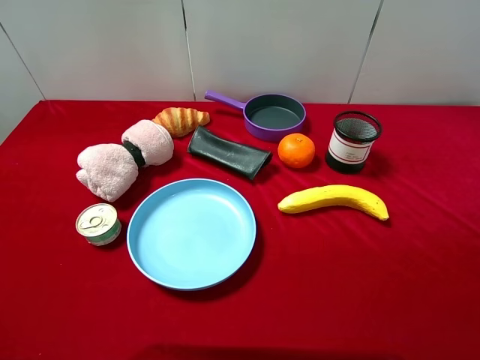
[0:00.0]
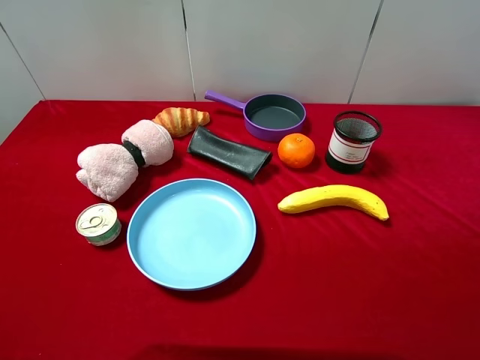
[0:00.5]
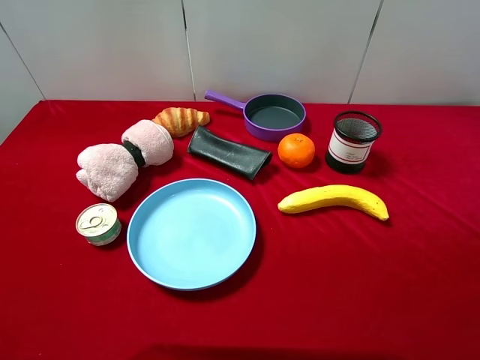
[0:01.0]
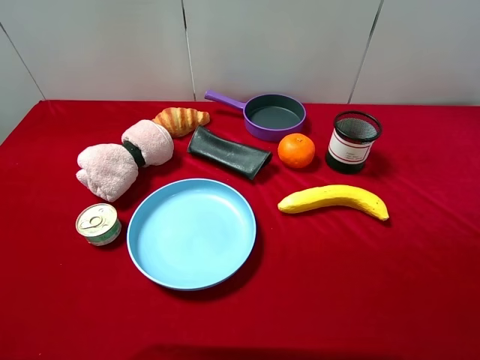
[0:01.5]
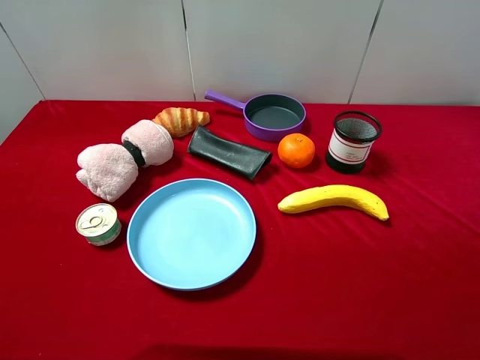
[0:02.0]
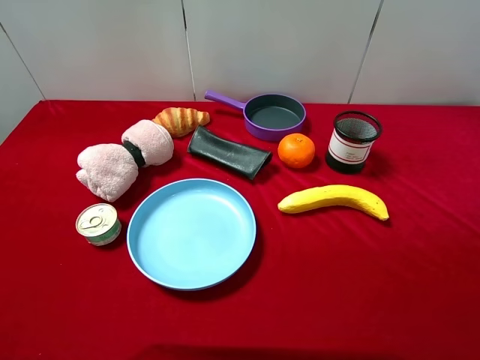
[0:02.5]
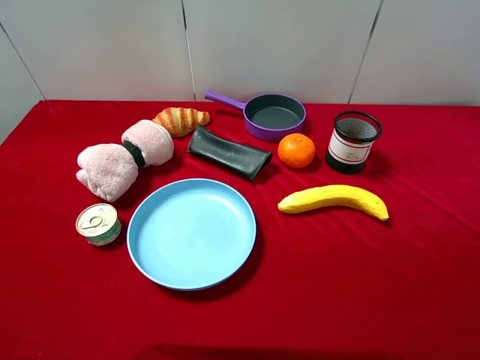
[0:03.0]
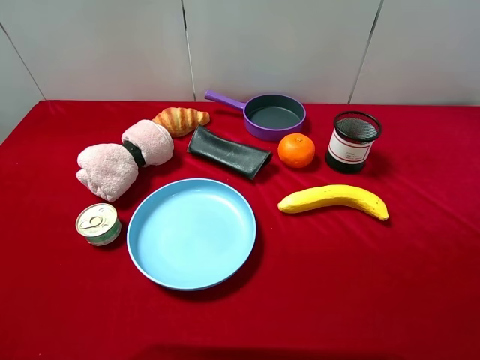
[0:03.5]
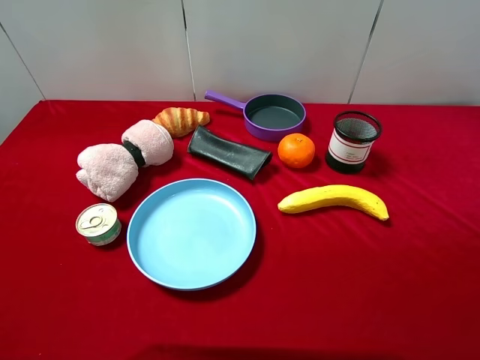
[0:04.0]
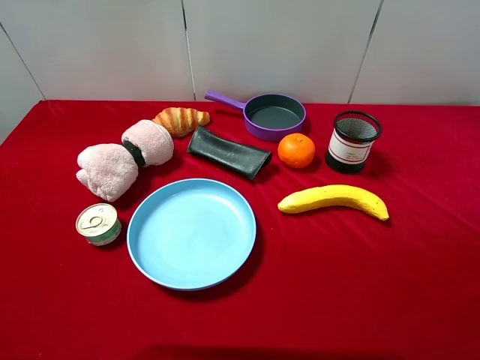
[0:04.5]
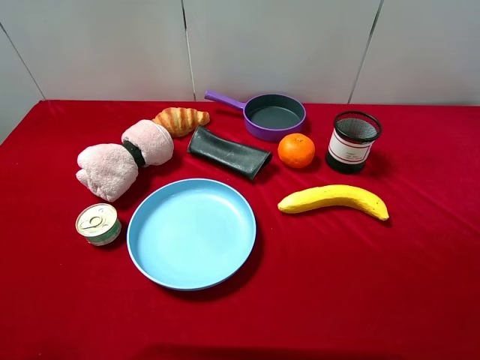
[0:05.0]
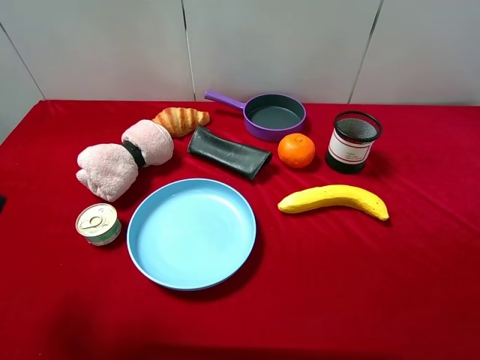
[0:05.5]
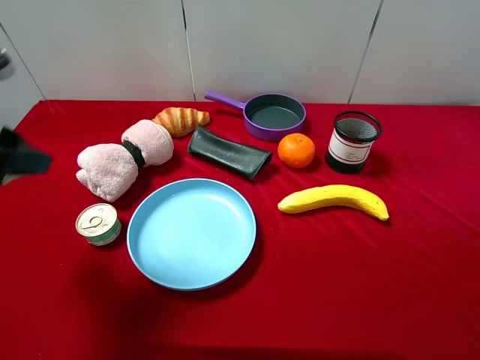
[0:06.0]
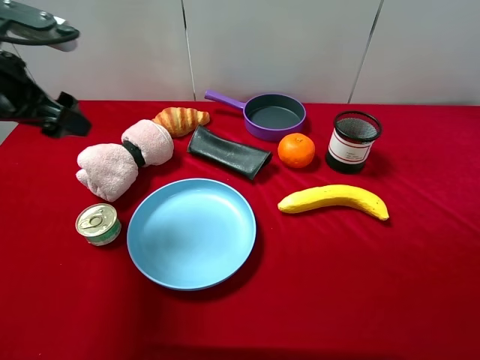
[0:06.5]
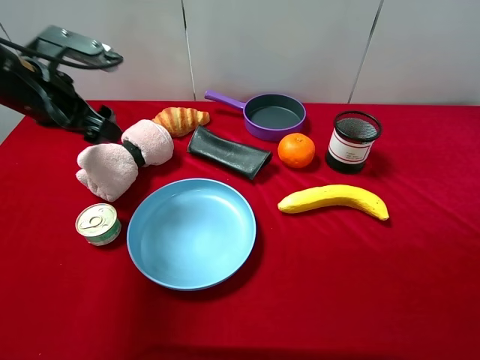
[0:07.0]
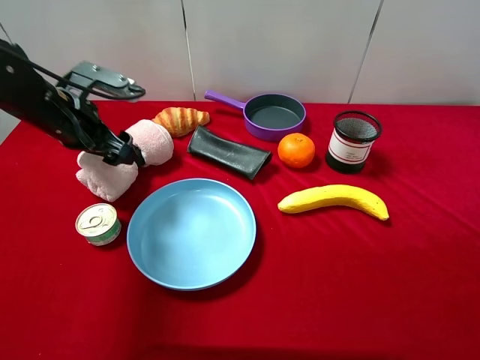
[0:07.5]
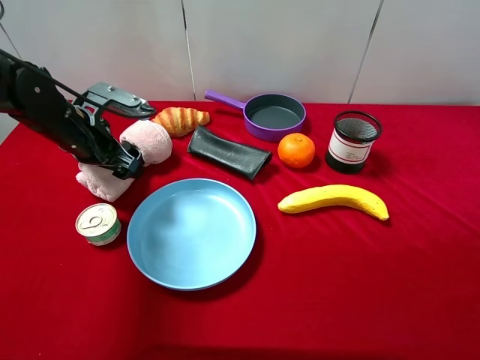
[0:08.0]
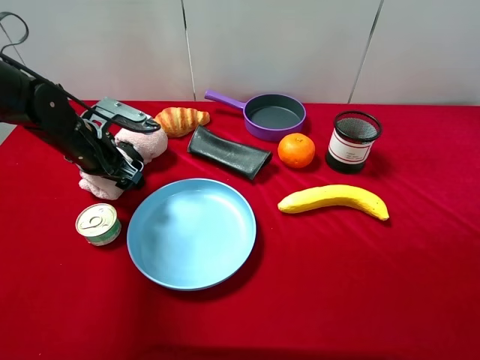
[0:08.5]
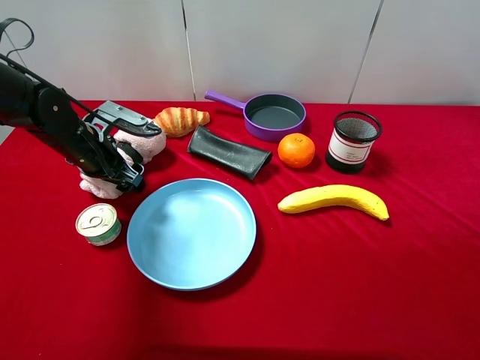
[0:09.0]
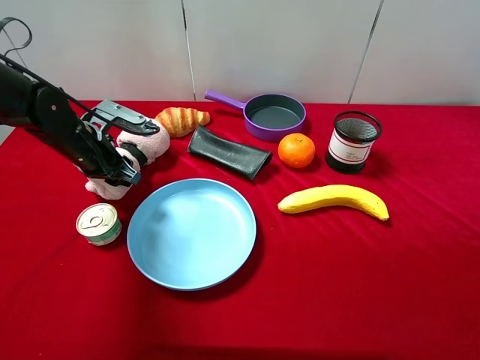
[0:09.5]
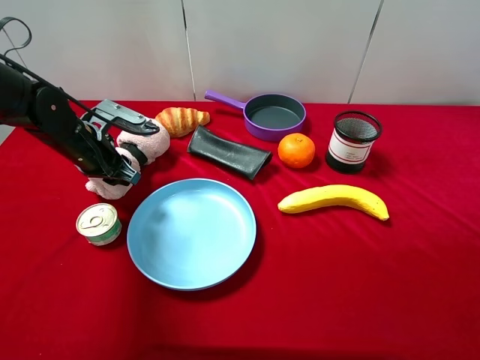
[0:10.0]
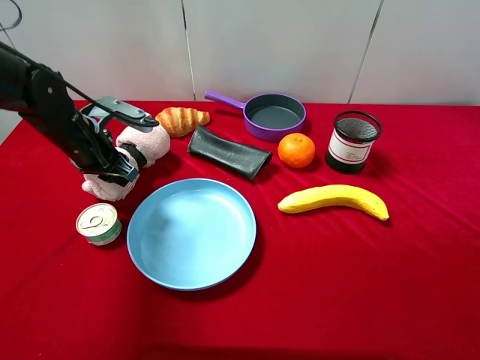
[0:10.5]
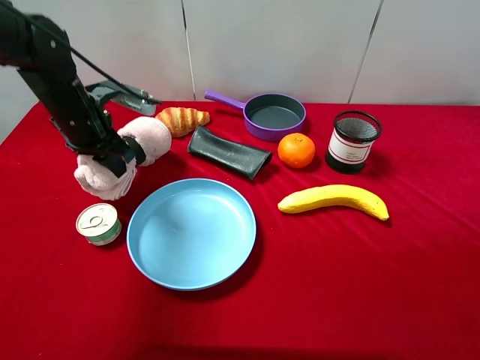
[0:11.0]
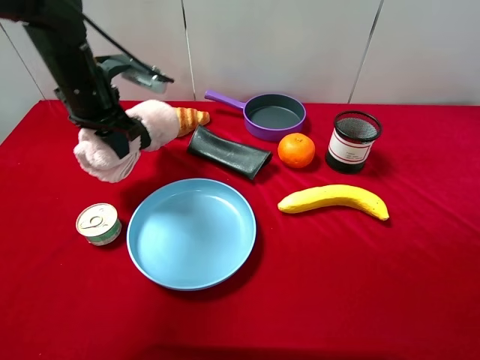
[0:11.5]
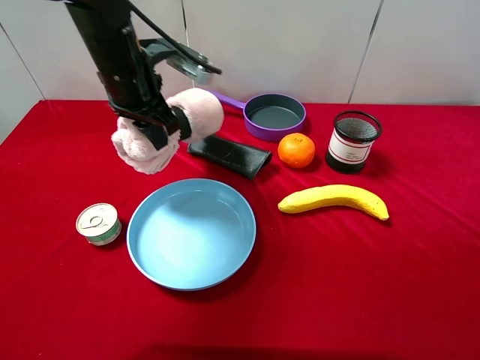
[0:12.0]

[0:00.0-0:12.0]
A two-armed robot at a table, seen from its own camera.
Task of the whole recording: pick up an item with a gripper and place it in a random container on the desktop.
0:00.0 to 0:04.0: Both grippers stay put.
0:04.0 to 0:06.0: The left gripper shifts some 20 cm forward.
0:06.0 to 0:08.0: The left gripper moves forward and downward, approximately 20 cm.
0:08.0 to 0:10.0: The left gripper closes.
0:10.0 to 0:12.0: The left gripper moves upward and to the right, approximately 15 cm.

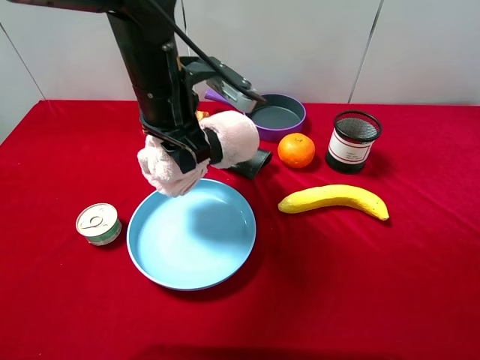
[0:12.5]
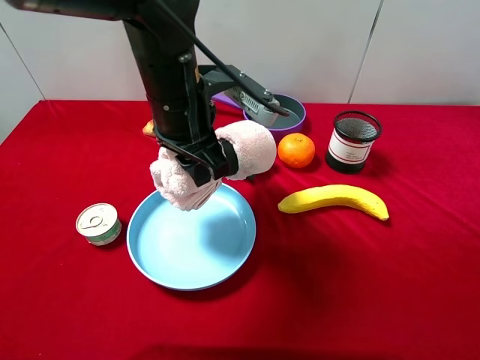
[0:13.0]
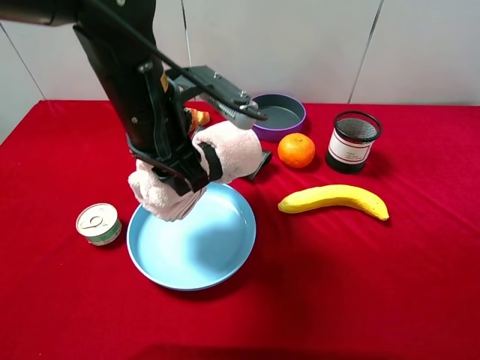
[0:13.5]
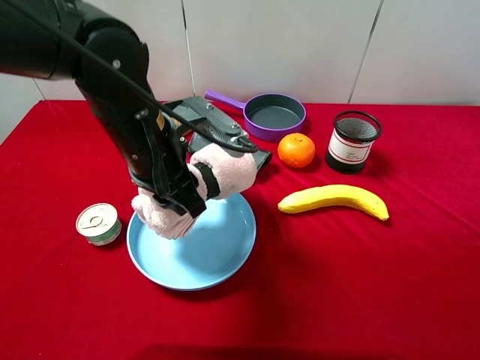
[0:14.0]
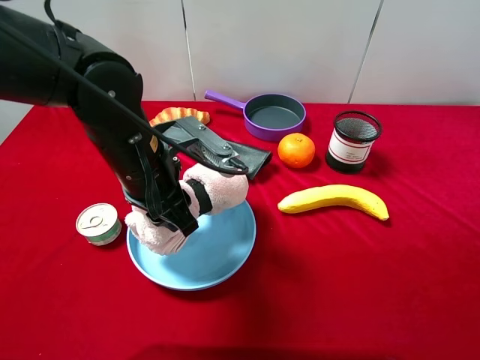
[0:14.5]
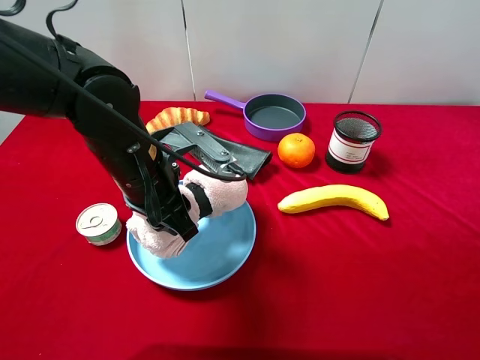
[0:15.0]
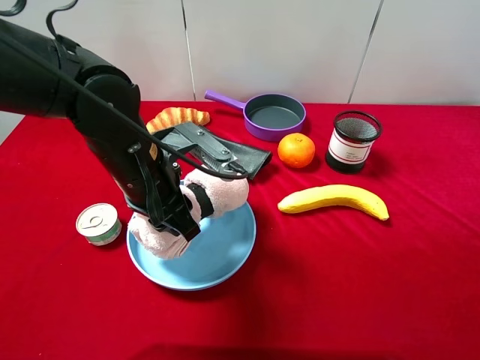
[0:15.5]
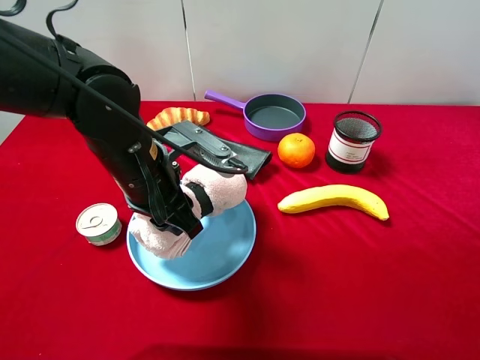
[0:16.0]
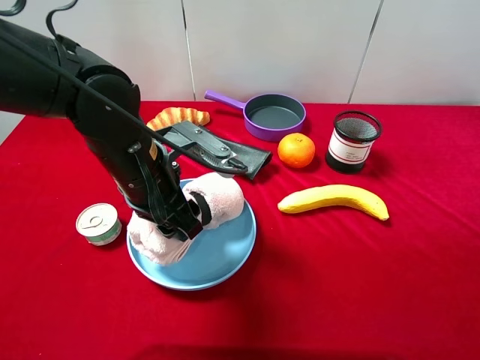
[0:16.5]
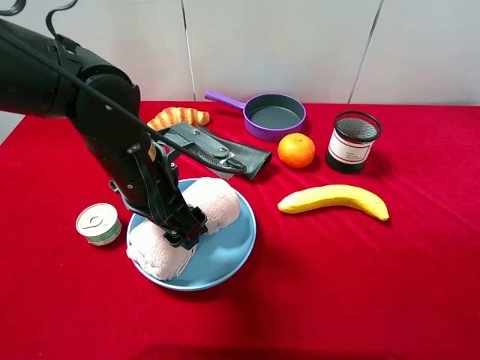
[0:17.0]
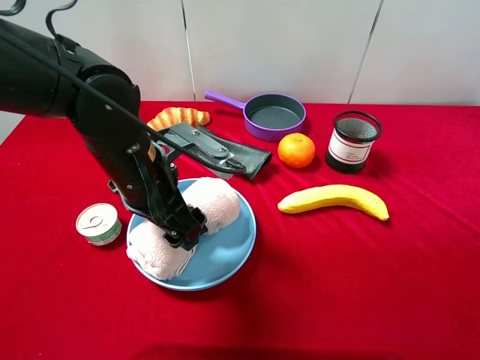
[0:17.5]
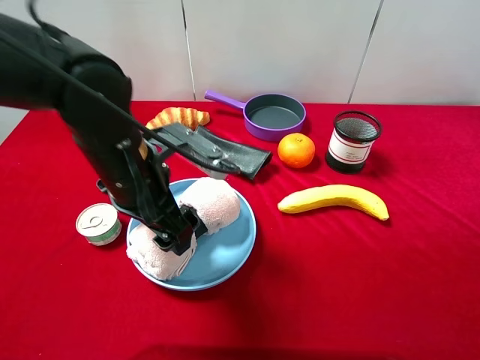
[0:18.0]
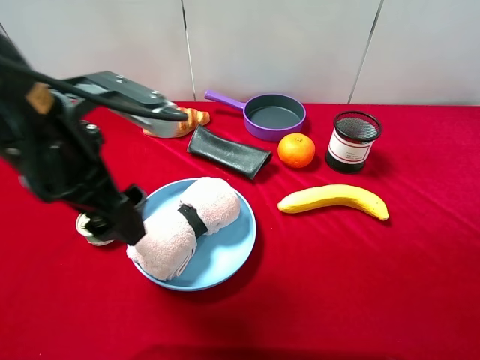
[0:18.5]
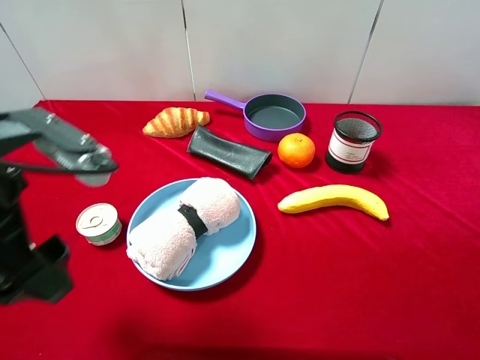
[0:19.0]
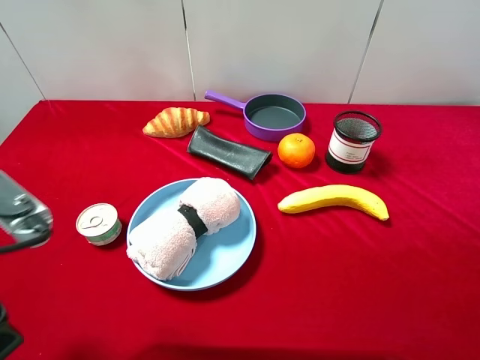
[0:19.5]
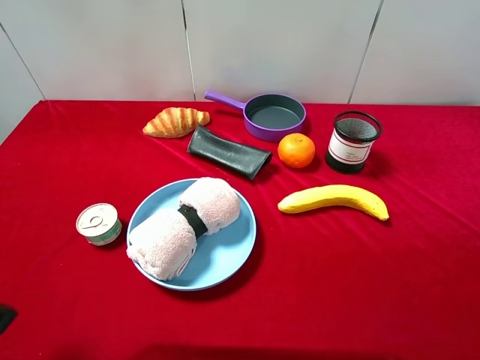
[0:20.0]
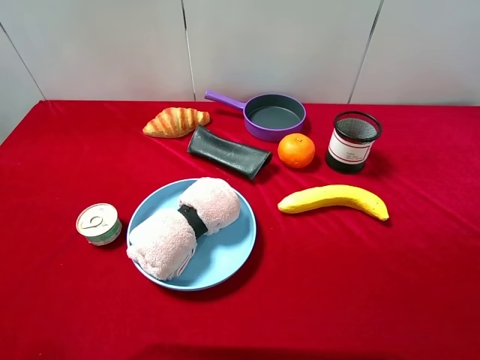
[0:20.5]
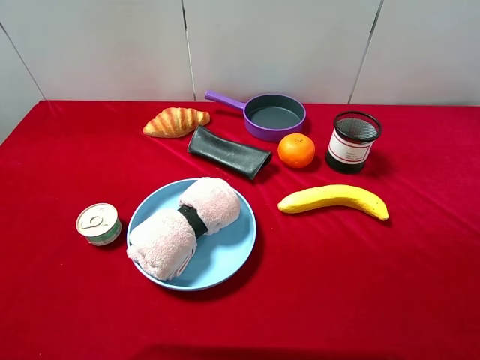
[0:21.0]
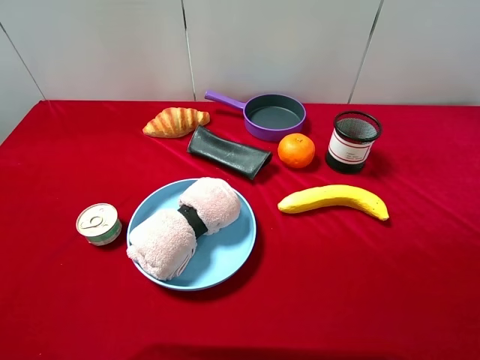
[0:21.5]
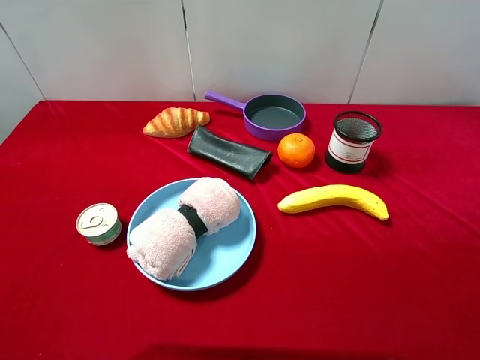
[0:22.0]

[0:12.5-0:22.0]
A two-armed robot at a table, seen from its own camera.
Task of the whole recording: pick up an item with a gripper and place it in a random container on the desktop.
0:12.5 to 0:14.5: The left gripper heads backward, covering roughly 5 cm.
0:14.5 to 0:16.5: The left gripper opens up.
0:16.5 to 0:18.0: The left gripper opens.
0:18.0 to 0:20.0: The left gripper heads to the left, backward and upward, covering about 20 cm.

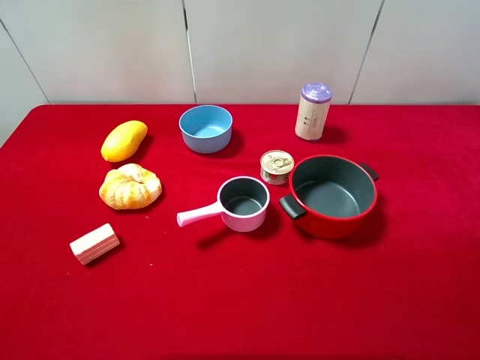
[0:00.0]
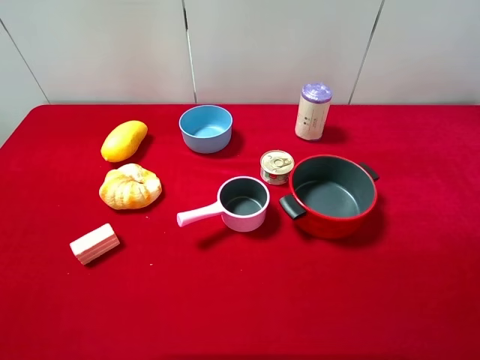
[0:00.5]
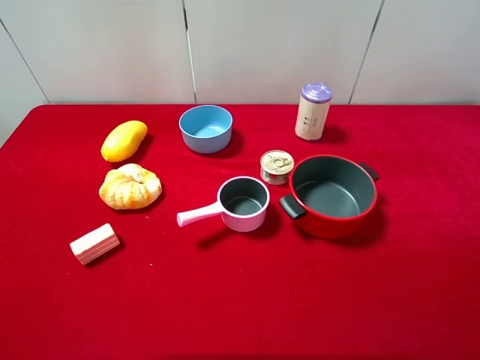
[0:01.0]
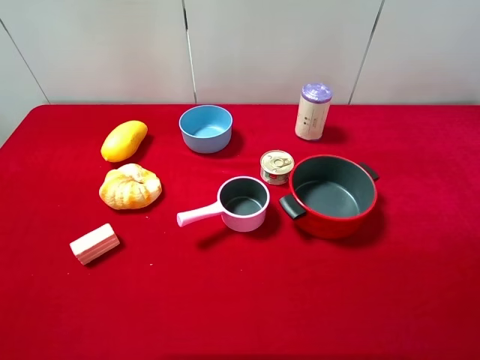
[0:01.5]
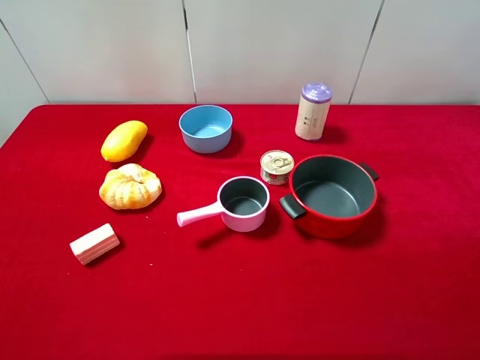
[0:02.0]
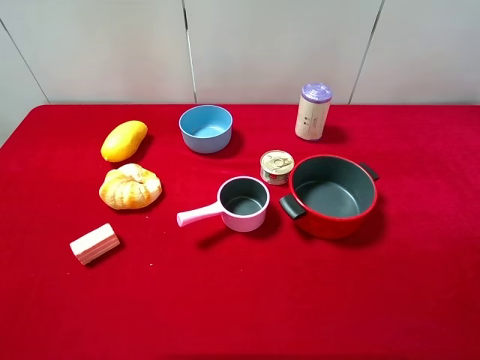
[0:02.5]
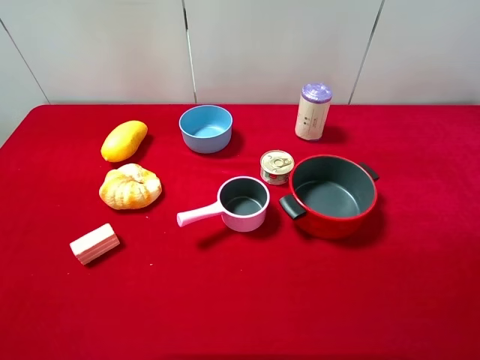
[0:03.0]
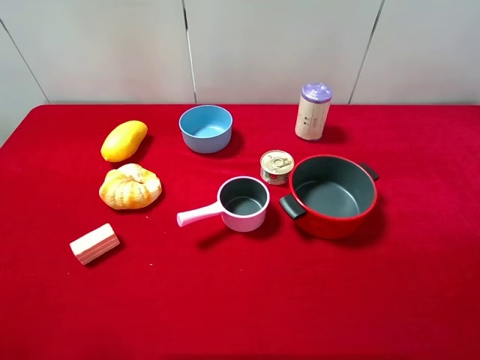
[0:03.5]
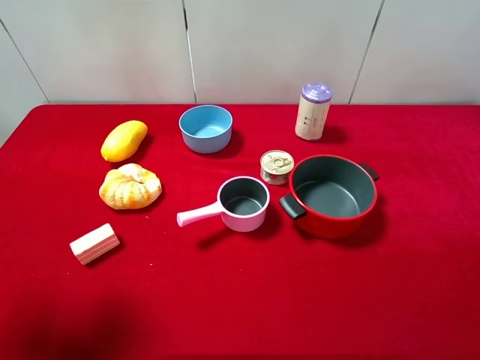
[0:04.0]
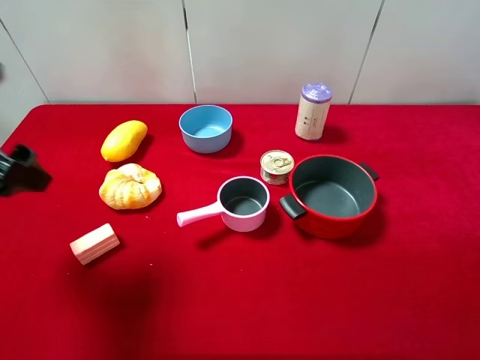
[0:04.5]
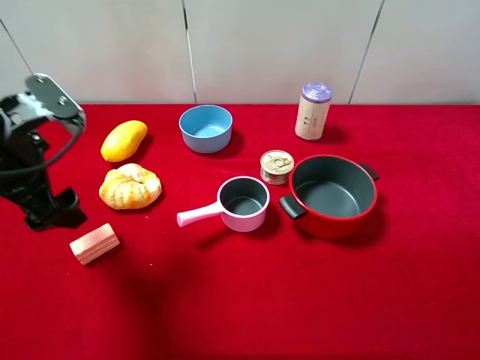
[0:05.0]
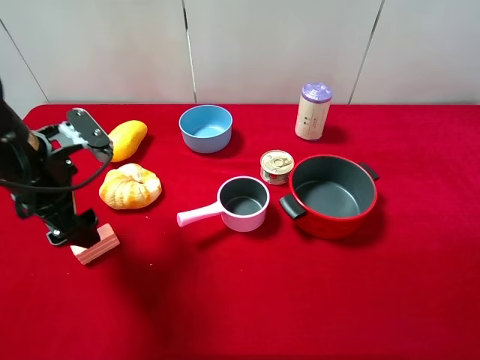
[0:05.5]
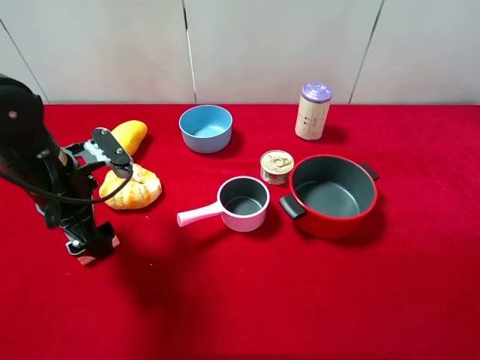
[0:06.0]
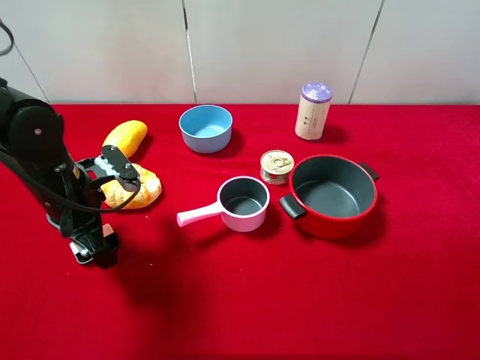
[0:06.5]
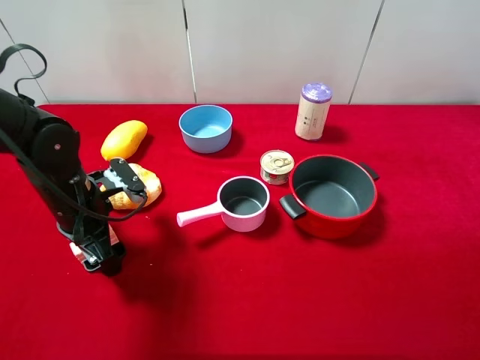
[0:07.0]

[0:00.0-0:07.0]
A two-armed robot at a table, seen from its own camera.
Task of the whole recording: pick up an item with a gripper and place it in a random container on the desktop.
0:00.0 to 0:02.0: Neither gripper changes place.
0:03.5 to 0:05.0: The left gripper is displaced forward, to the right and downward by approximately 20 cm.
0:05.0 to 0:07.0: The left gripper is displaced downward by approximately 10 cm.
